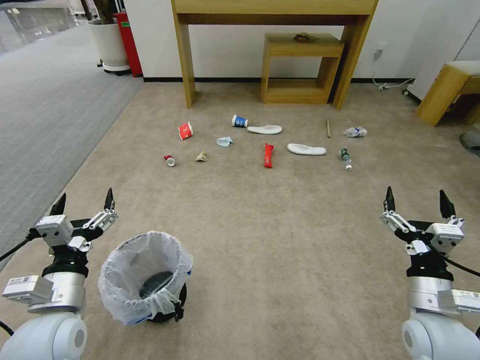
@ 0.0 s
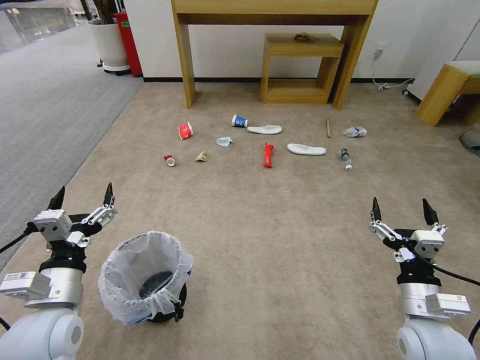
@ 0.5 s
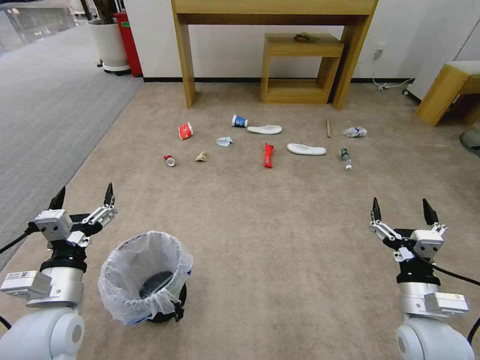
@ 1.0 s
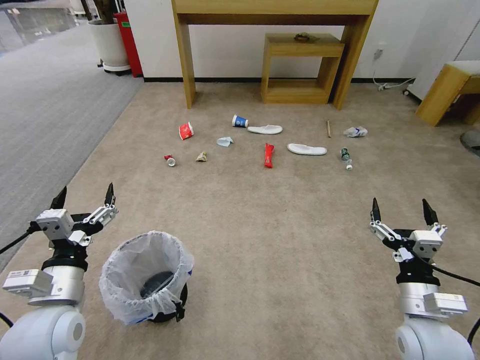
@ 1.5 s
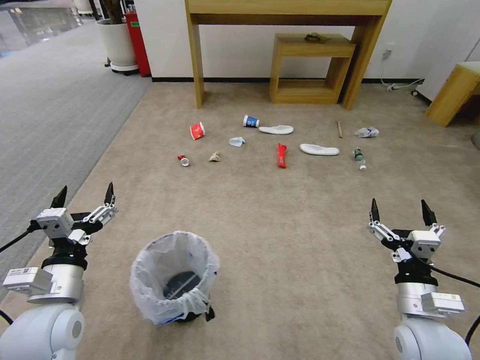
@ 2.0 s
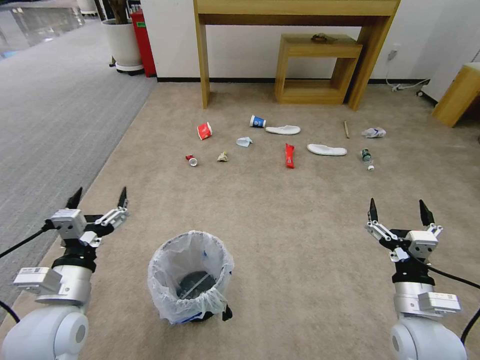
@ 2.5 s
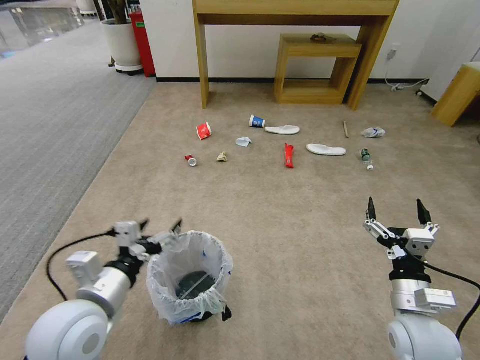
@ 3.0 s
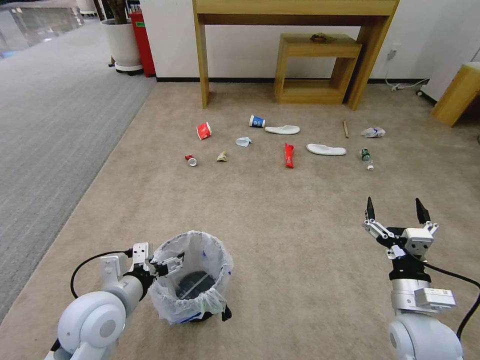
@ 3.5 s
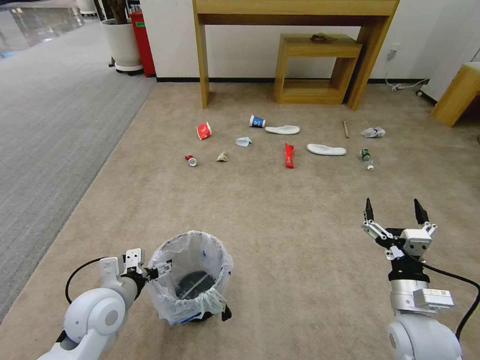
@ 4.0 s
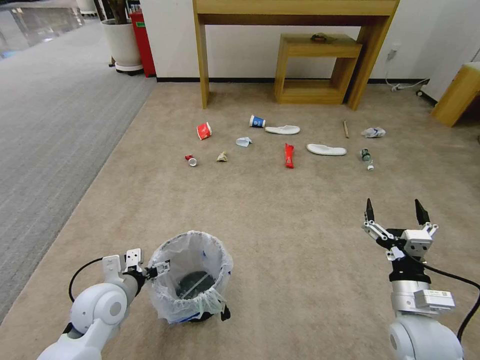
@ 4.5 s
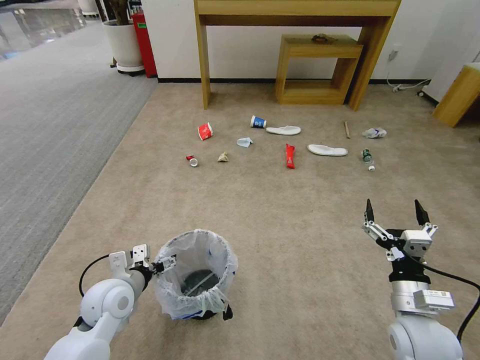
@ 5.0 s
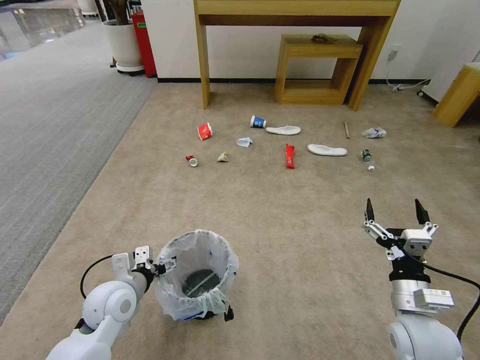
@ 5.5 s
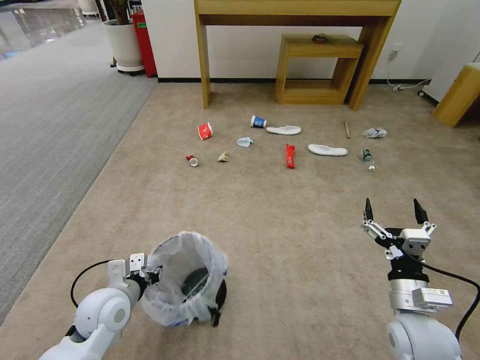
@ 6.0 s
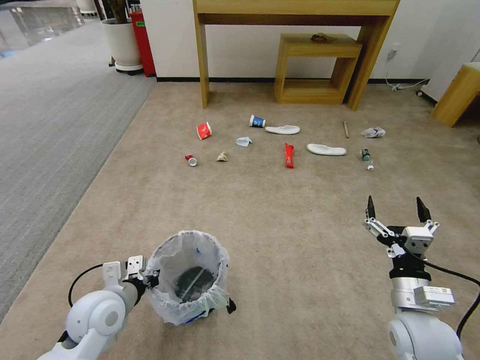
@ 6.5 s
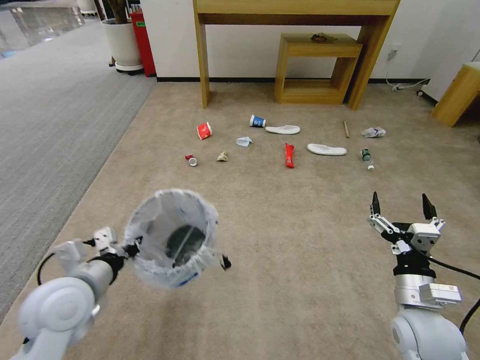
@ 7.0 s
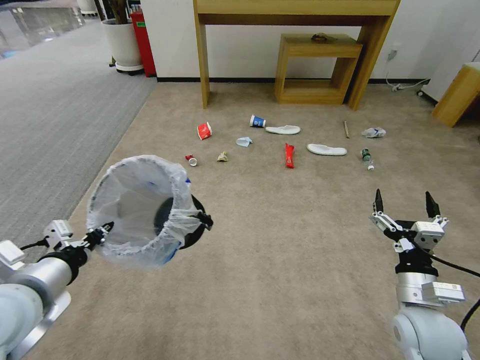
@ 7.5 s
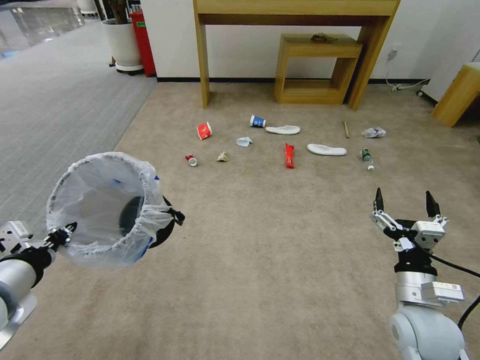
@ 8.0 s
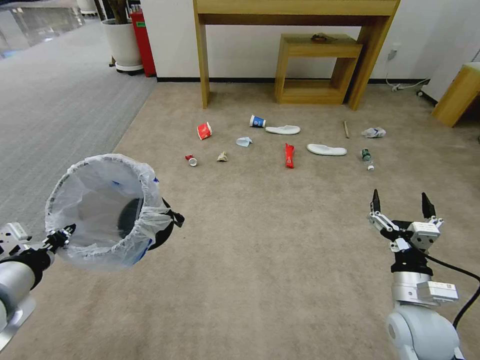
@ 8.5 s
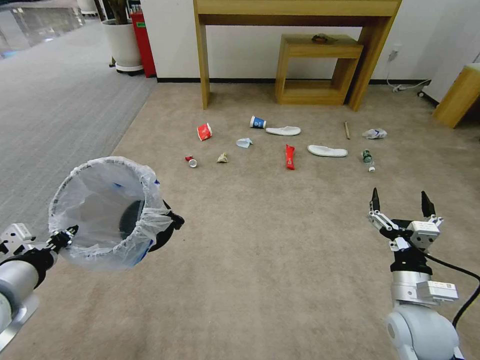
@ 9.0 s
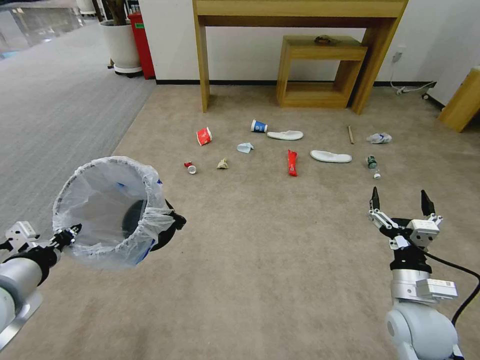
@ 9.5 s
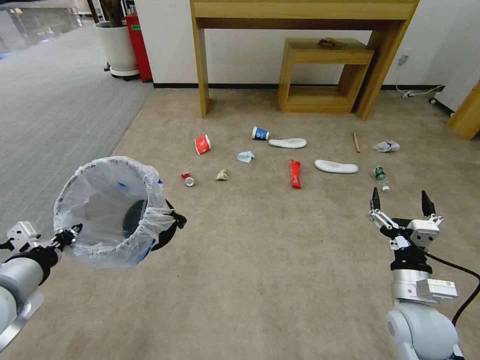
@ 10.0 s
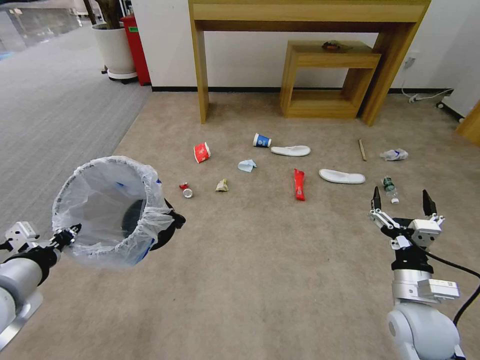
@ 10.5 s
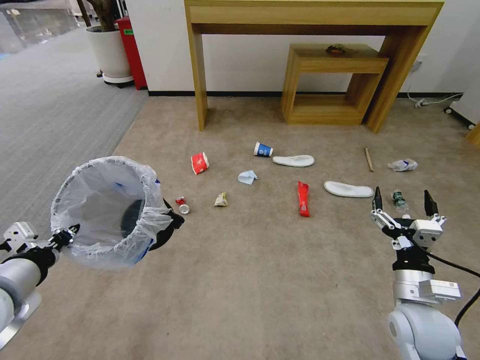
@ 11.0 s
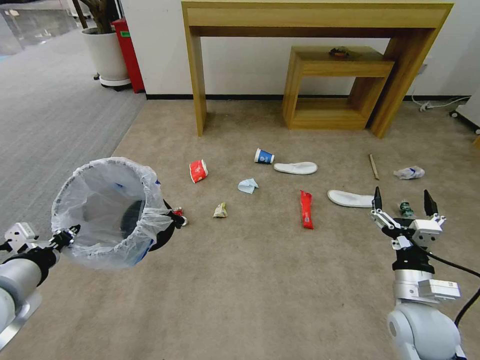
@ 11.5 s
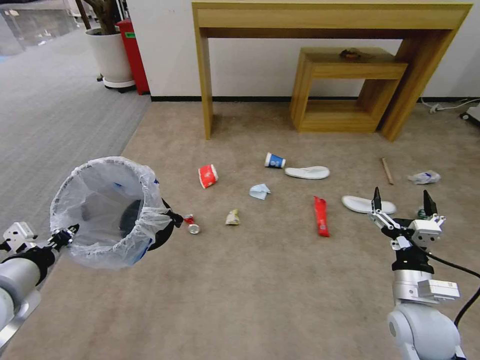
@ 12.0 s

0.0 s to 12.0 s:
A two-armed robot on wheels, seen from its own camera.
Task of the whole recording: Pick up the trash bin and place the garbage on the floor into it.
2.0 to 4.0 s: The left gripper heads downward, covering approximately 5 cm.
4.0 to 6.0 s: The left gripper closes its fingers.
6.0 to 8.0 s: The left gripper goes approximately 20 cm upward and to the left.
8.0 to 10.0 s: The grippers make only small movements.

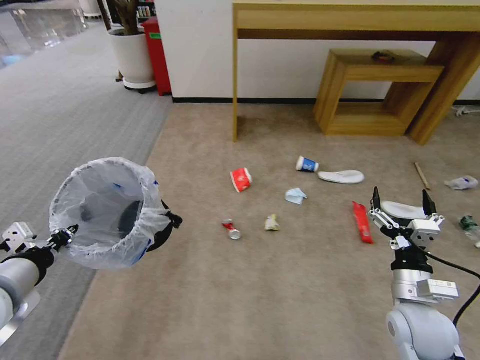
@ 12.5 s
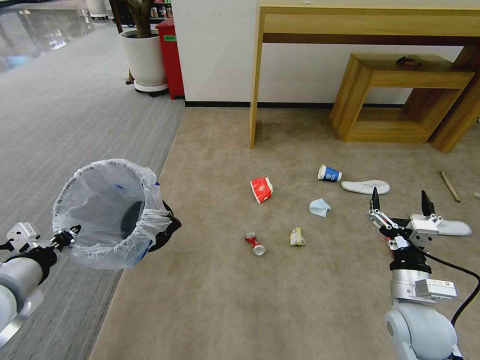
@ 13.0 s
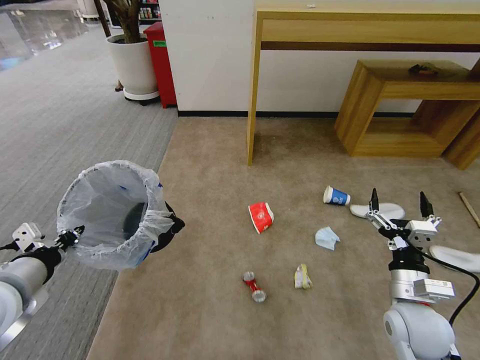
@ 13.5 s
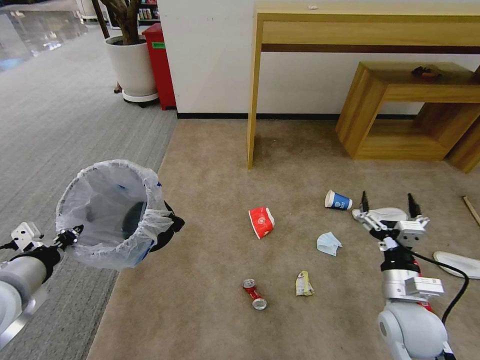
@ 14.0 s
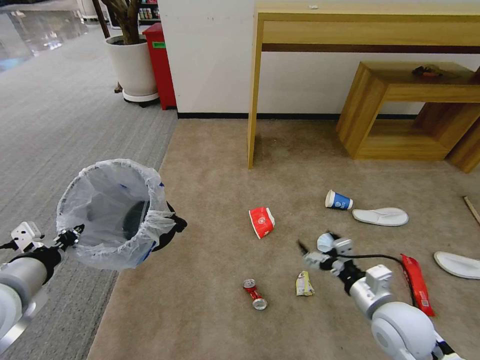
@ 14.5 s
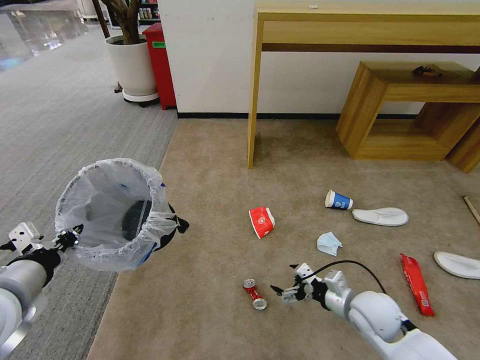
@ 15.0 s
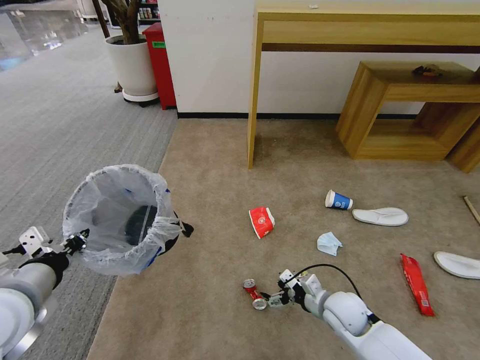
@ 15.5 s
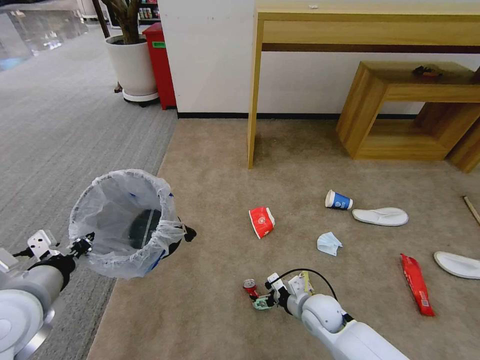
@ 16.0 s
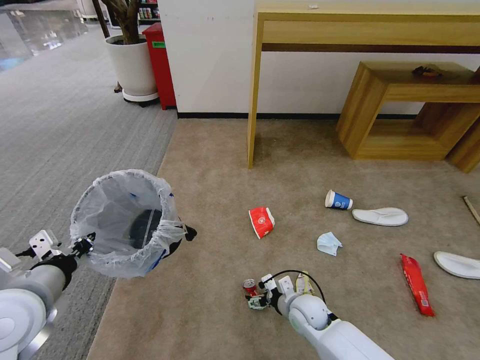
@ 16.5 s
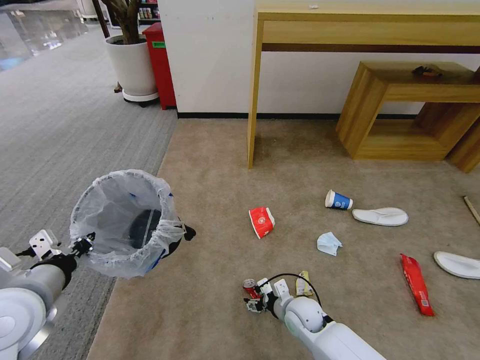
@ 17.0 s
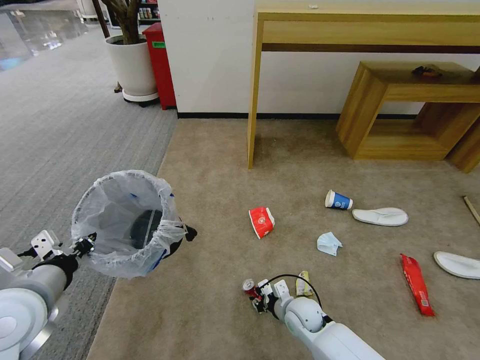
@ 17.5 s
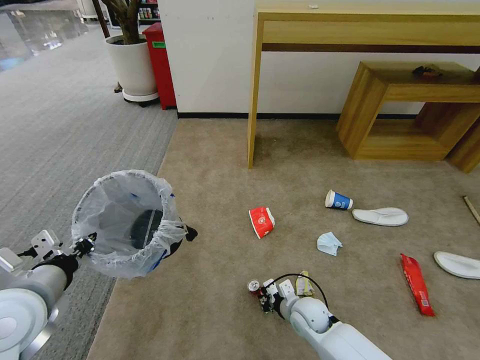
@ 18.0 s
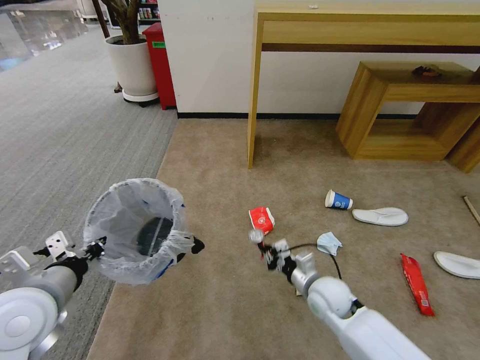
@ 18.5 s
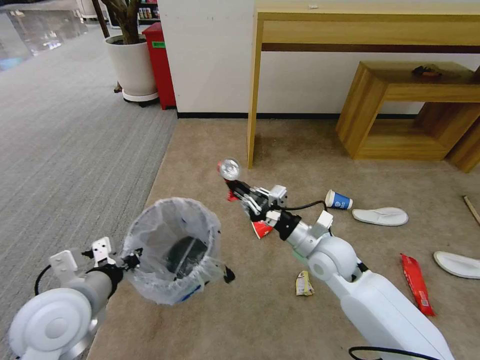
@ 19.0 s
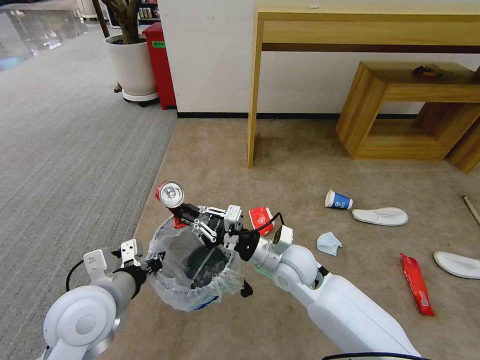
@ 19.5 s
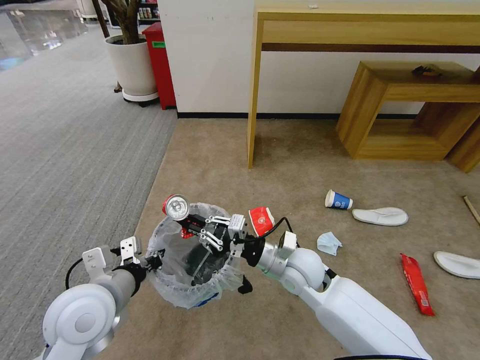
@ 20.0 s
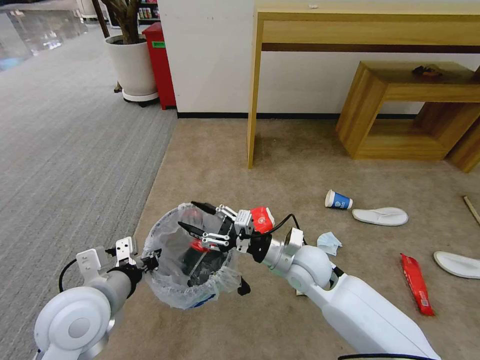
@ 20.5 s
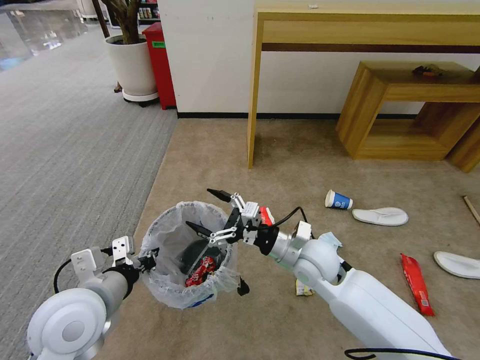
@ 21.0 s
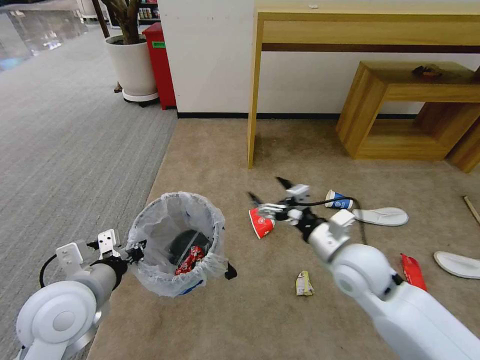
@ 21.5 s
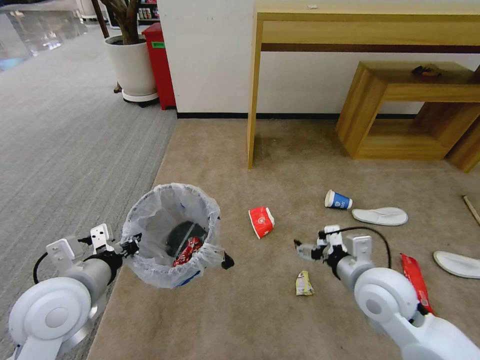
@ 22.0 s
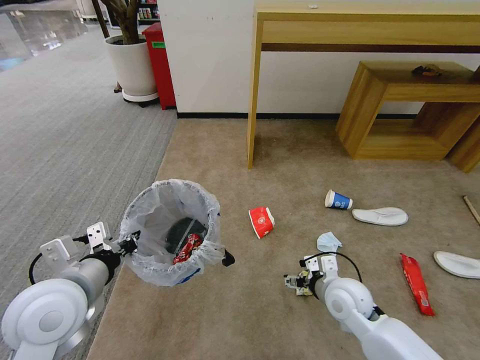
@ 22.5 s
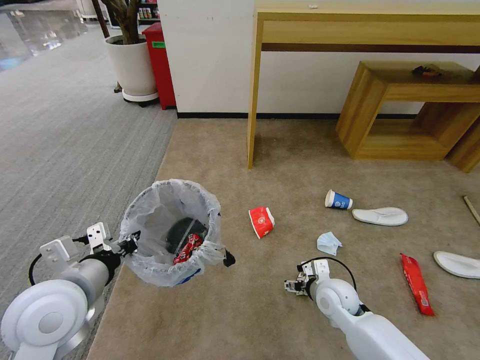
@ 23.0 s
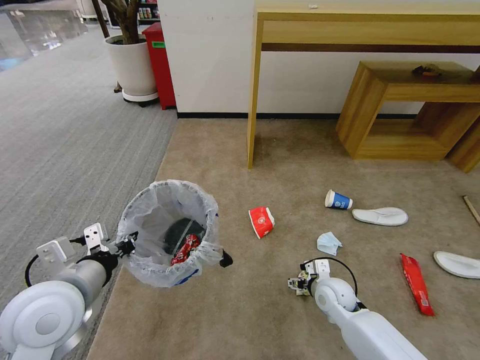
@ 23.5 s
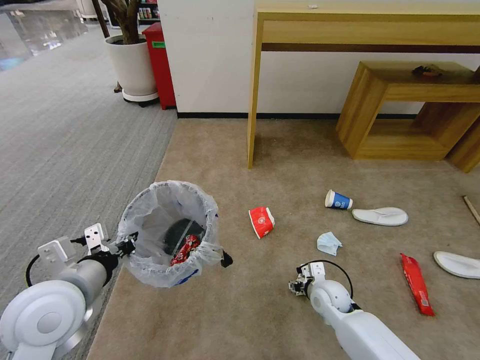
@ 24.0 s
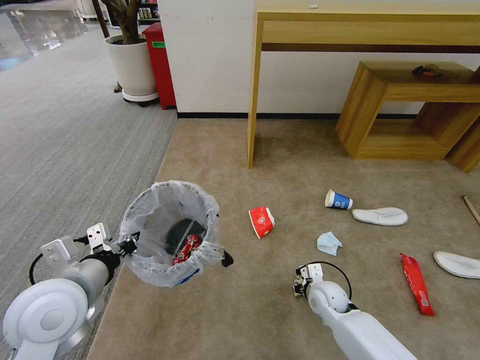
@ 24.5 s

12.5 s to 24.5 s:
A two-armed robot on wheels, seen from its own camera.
Task of the whole recording: Pick up the trash bin and place the garbage on the floor into it.
14.5 to 16.5 s: The right gripper travels downward, to the left and forward by roughly 20 cm.
16.5 to 18.5 s: The right gripper is displaced upward by approximately 10 cm, and closes its fingers.
18.5 to 20.5 s: The left gripper is displaced to the right by about 5 cm. Meanwhile the right gripper goes roughly 10 cm upward and to the left, and opens.
20.5 to 22.5 s: The right gripper is displaced to the right and downward by about 10 cm, and opens up.
22.5 to 24.5 s: The right gripper heads downward, covering about 10 cm, and closes.

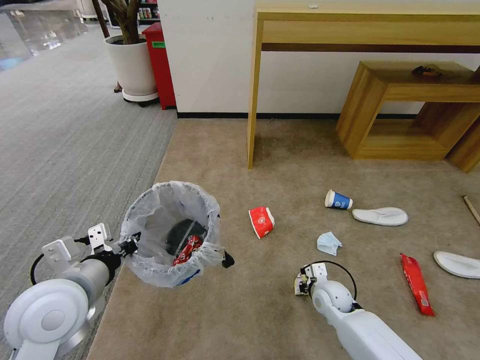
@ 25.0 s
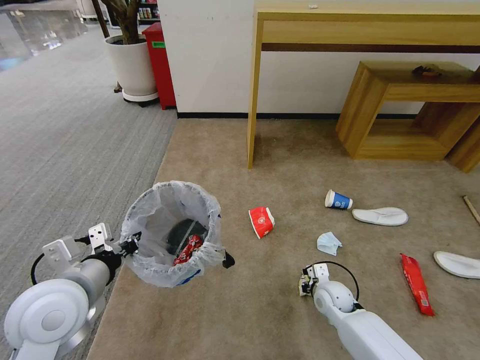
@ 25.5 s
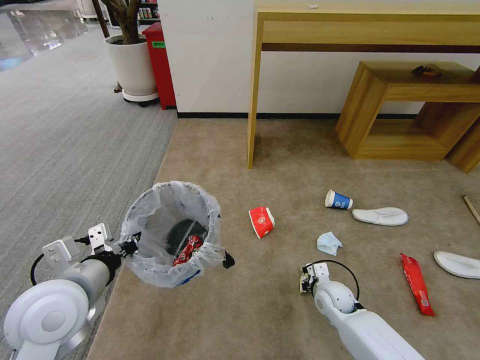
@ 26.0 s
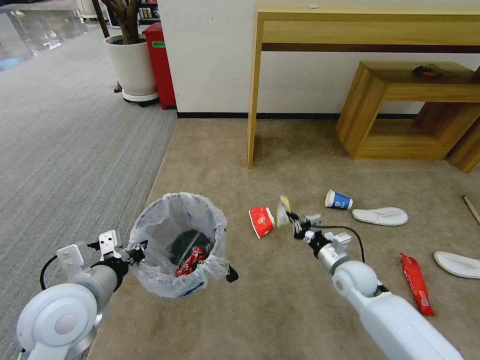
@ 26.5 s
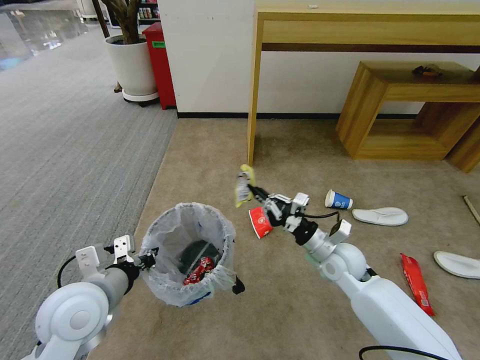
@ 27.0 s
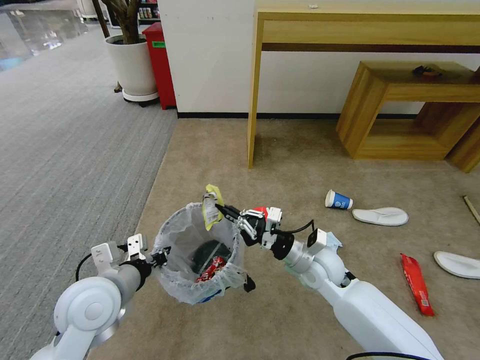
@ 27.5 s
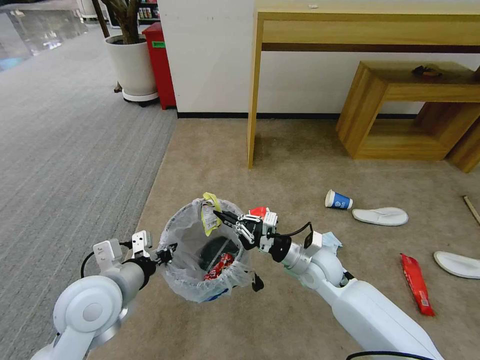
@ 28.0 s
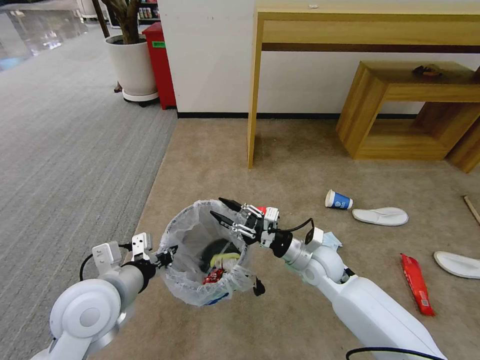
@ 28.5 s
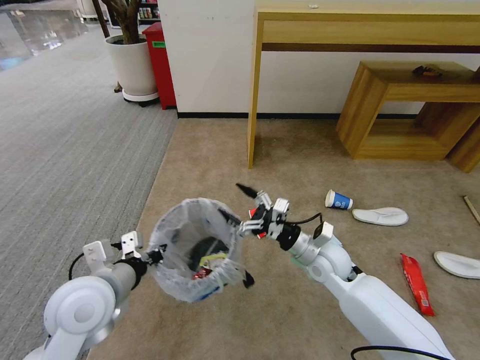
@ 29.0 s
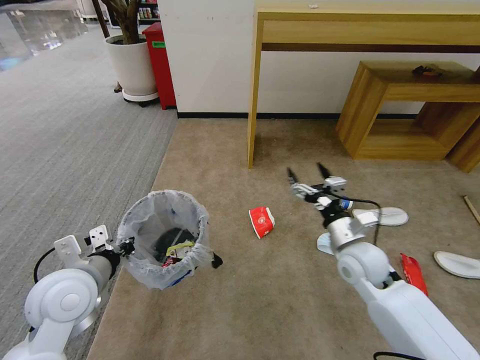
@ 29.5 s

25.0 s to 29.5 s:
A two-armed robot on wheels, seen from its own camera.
Task of the whole recording: Pick up the trash bin and place the garbage on the floor into it.
25.0 to 27.0 s: The right gripper moves upward, roughly 15 cm.
27.0 to 29.5 s: The right gripper opens.
